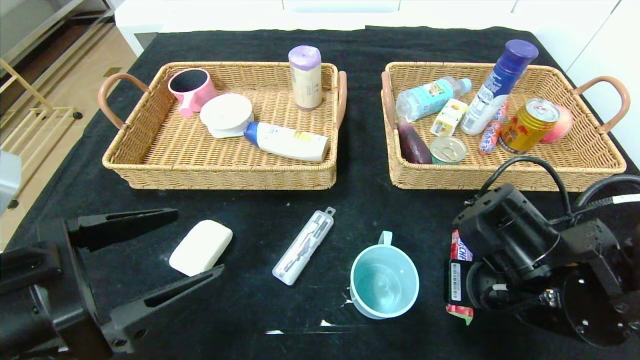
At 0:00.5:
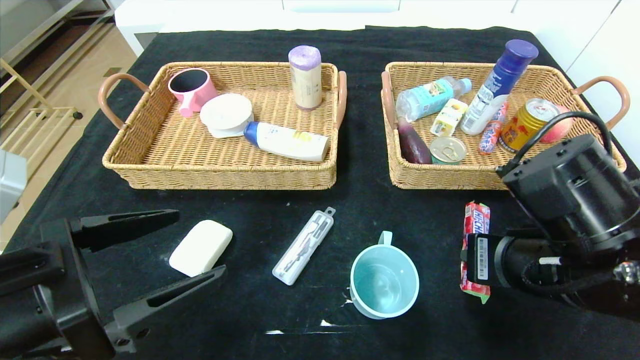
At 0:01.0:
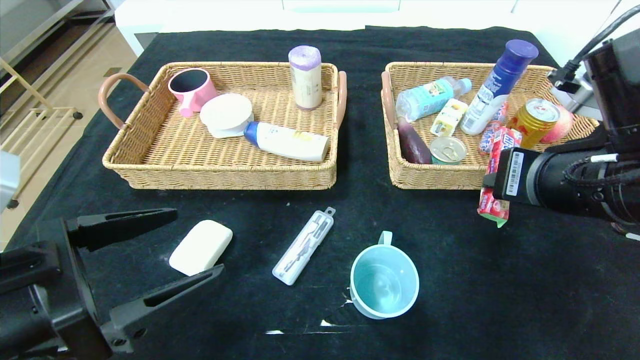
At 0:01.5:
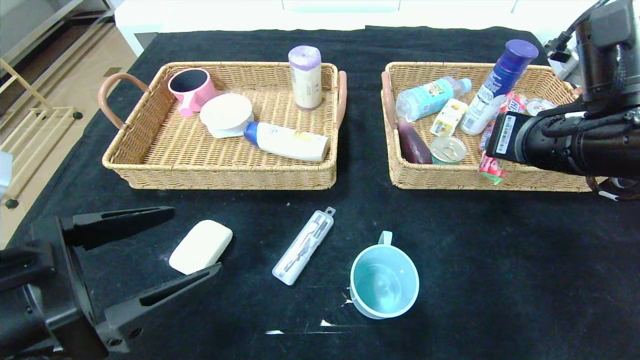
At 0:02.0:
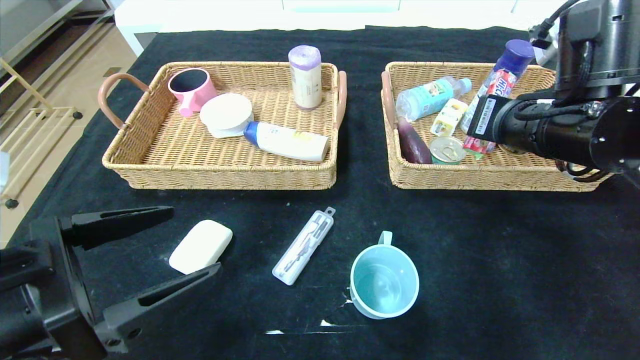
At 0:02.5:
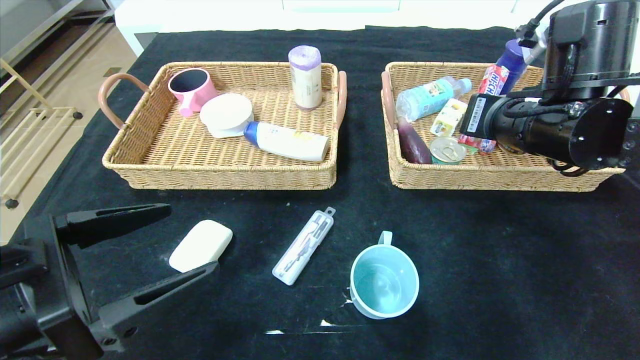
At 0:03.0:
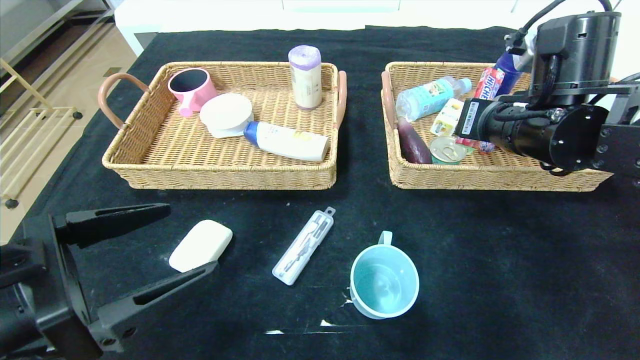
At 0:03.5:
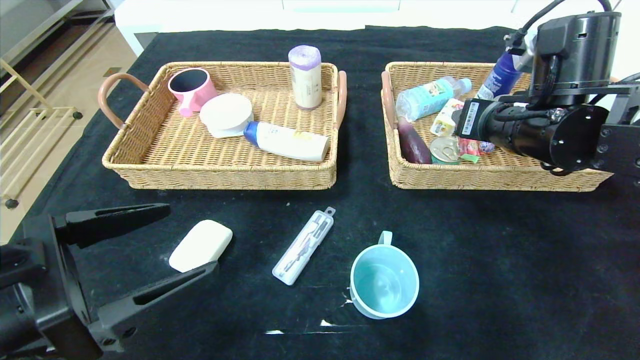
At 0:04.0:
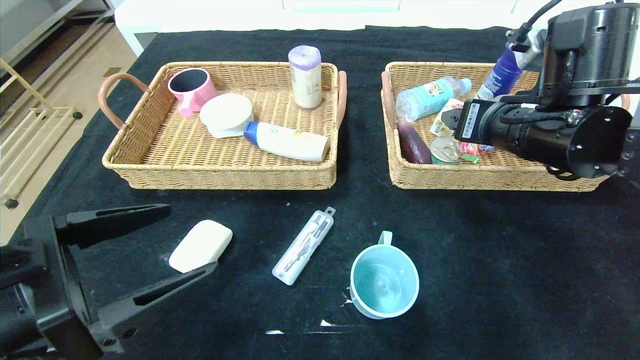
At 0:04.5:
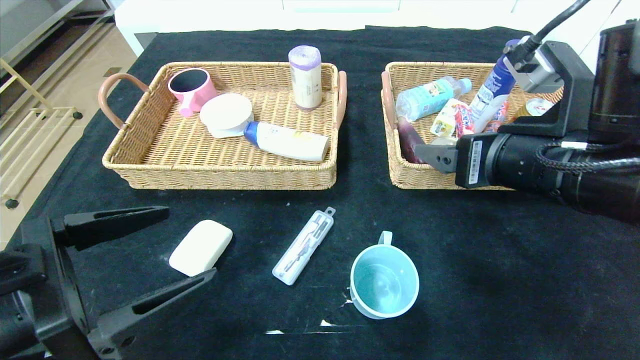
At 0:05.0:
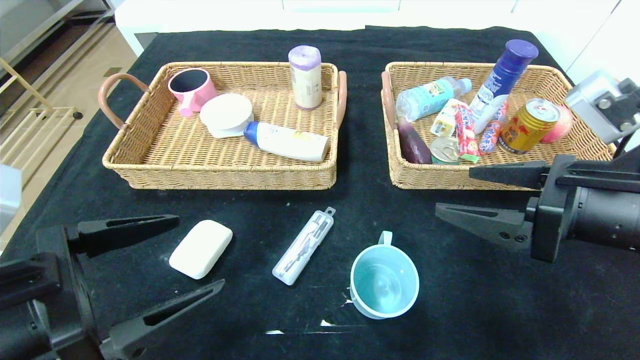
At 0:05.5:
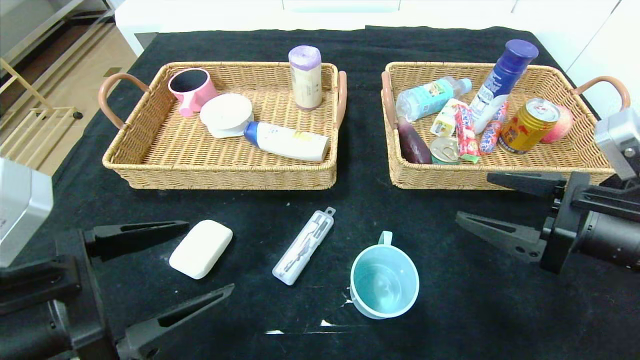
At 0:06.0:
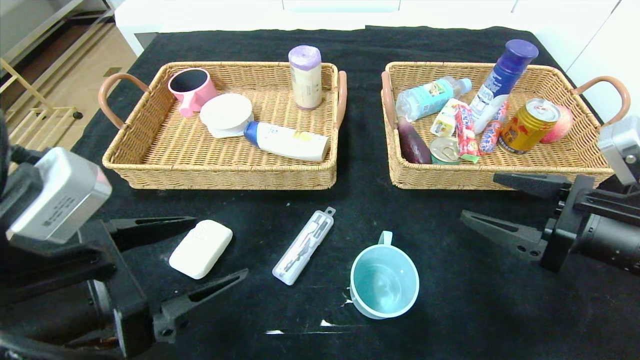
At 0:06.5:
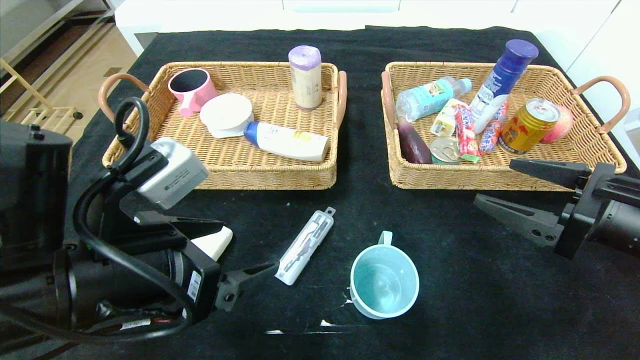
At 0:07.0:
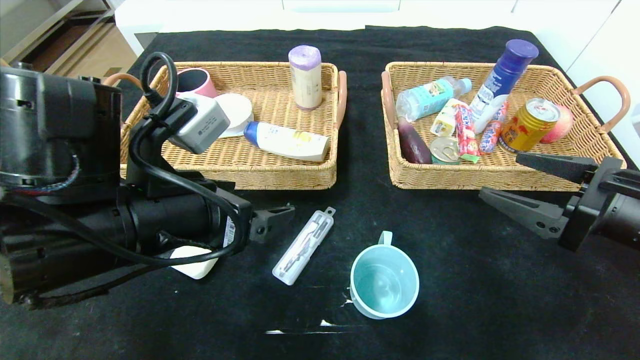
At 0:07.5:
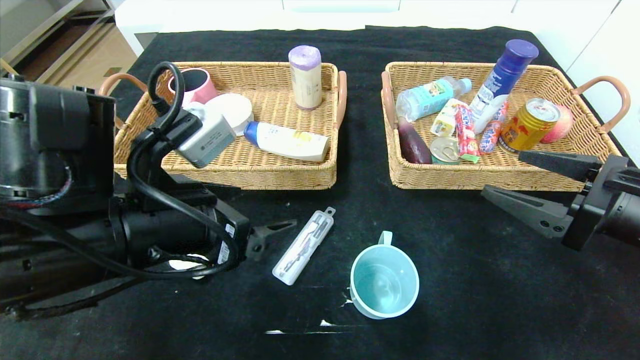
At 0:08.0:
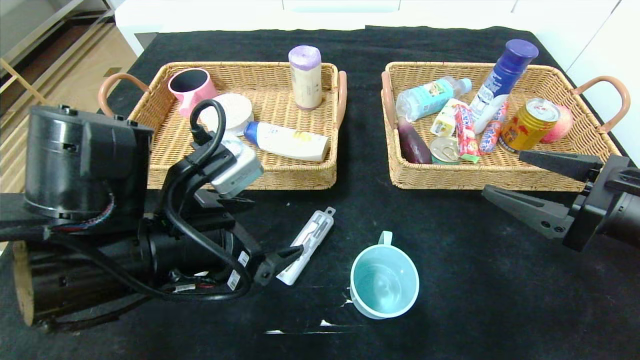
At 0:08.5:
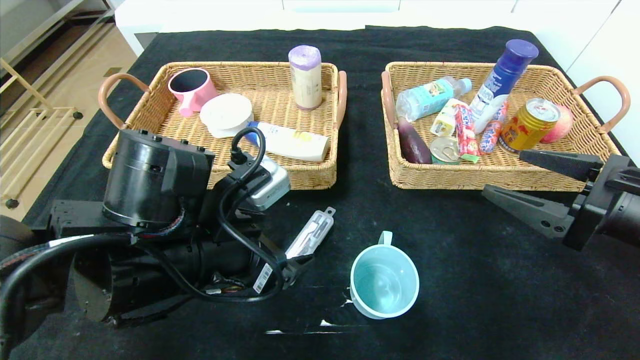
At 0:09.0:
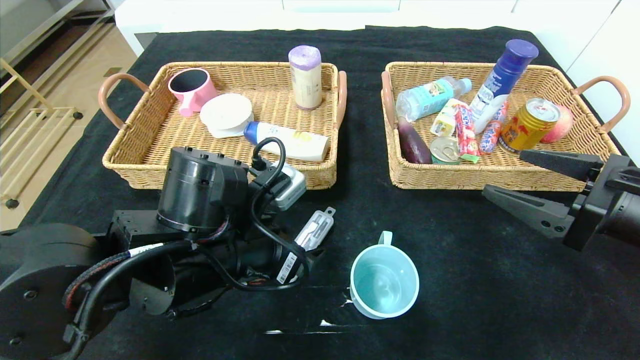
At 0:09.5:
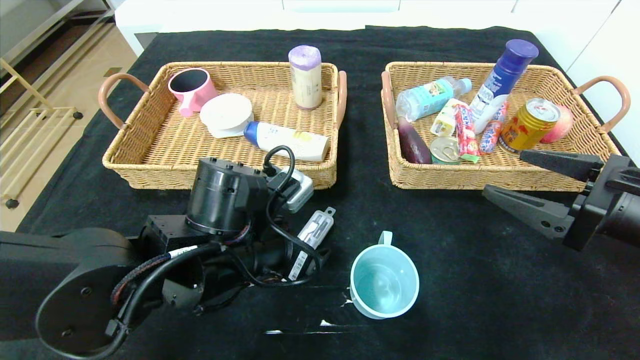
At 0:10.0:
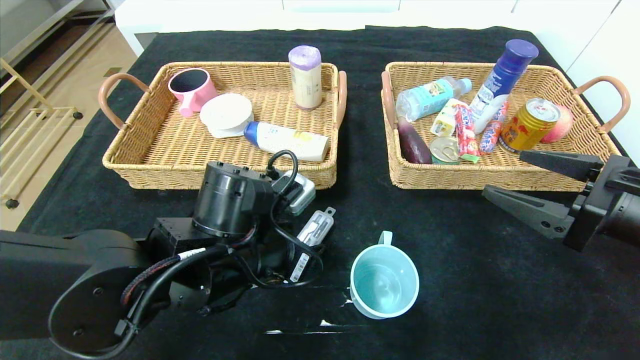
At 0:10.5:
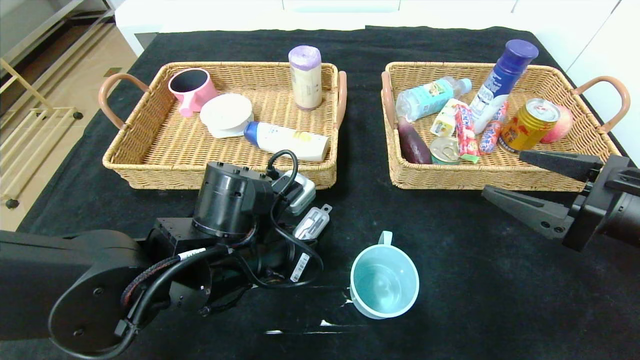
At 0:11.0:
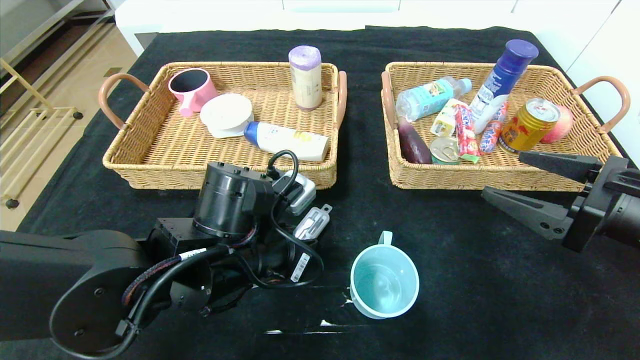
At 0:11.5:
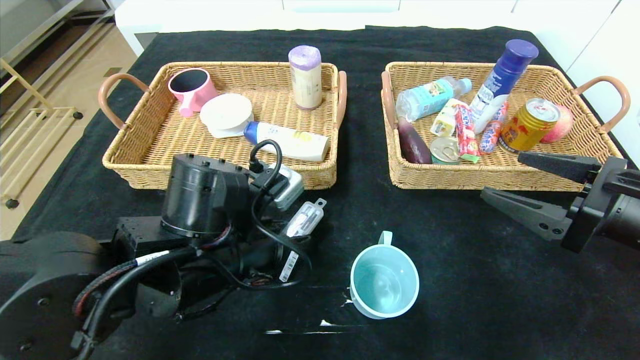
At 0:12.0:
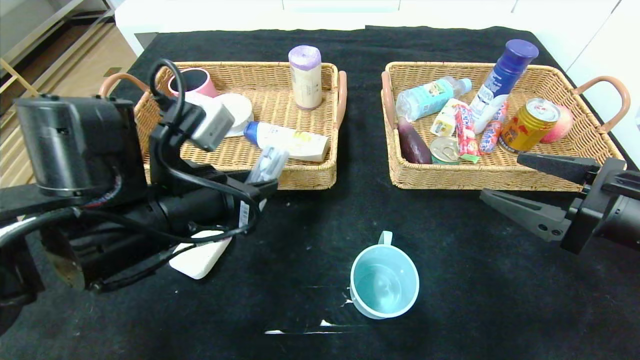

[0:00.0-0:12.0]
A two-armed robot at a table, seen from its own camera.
Step, 0:00.0 to 0:03.5: Grasp the fruit fudge and put it in the right basket.
0:00.0 to 0:02.0: The right gripper is displaced upward and forward by roughly 15 cm.
0:02.0 to 0:04.0: The right gripper opens up.
0:04.0 to 0:06.0: The right gripper travels backward, to the right and downward by some 15 cm.
0:06.0 to 0:08.0: The left gripper heads forward and to the right, covering approximately 10 cm.
0:08.0 to 0:10.0: The left gripper travels downward by roughly 5 cm, and closes.
0:10.0 to 0:12.0: The left gripper moves upward and to the left, some 10 cm.

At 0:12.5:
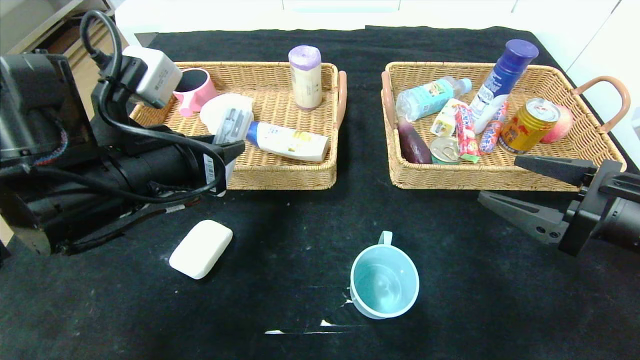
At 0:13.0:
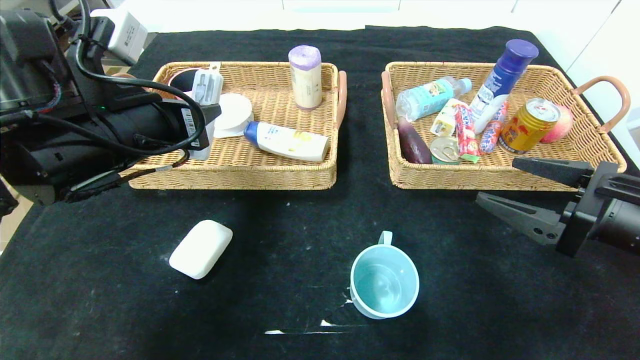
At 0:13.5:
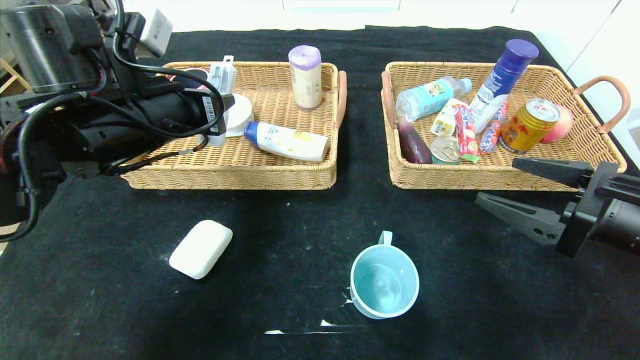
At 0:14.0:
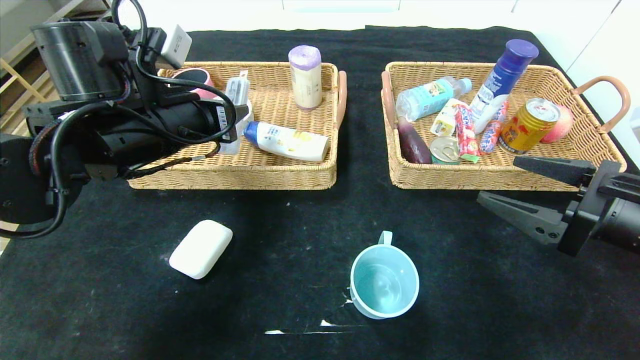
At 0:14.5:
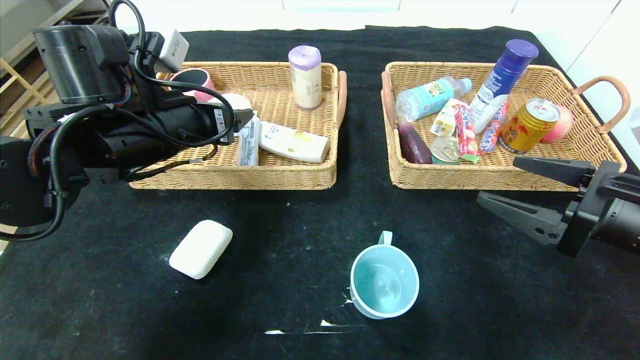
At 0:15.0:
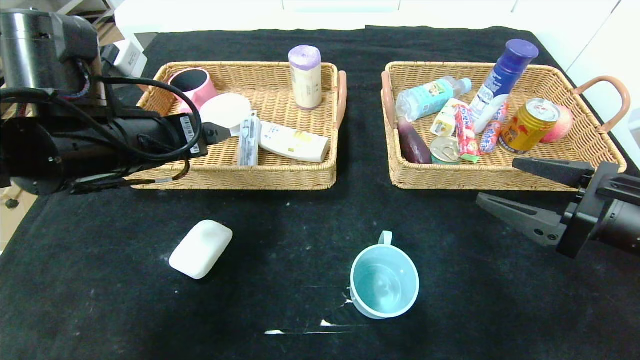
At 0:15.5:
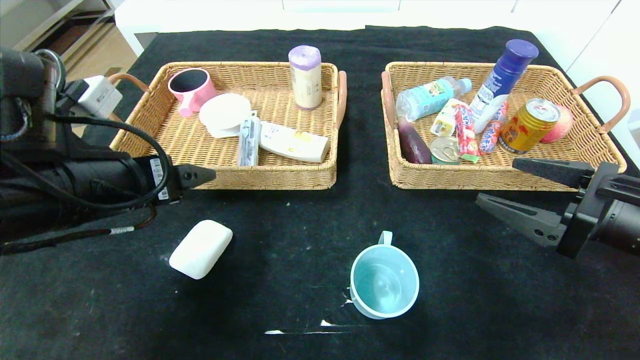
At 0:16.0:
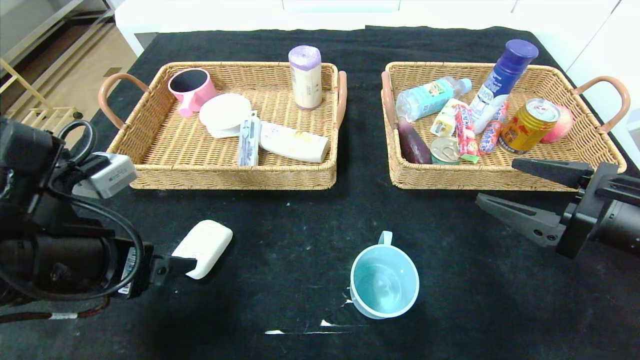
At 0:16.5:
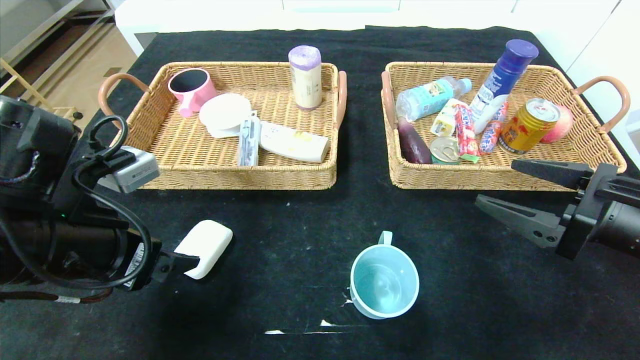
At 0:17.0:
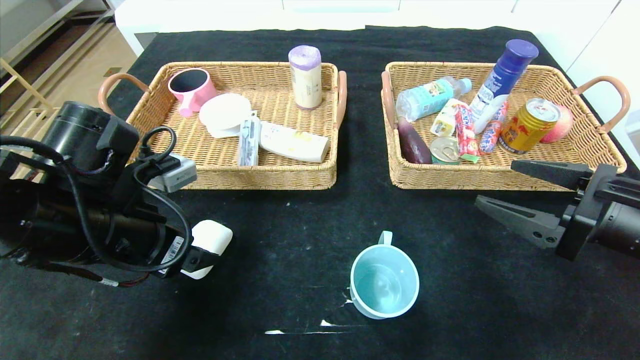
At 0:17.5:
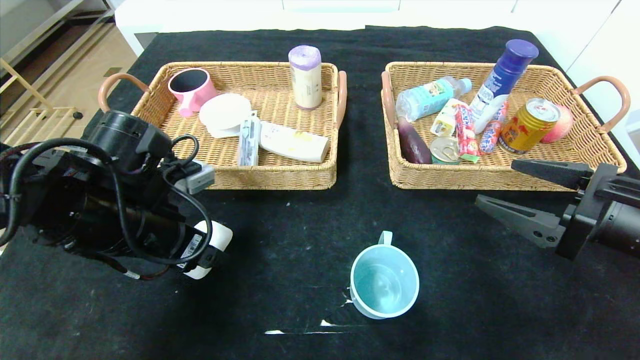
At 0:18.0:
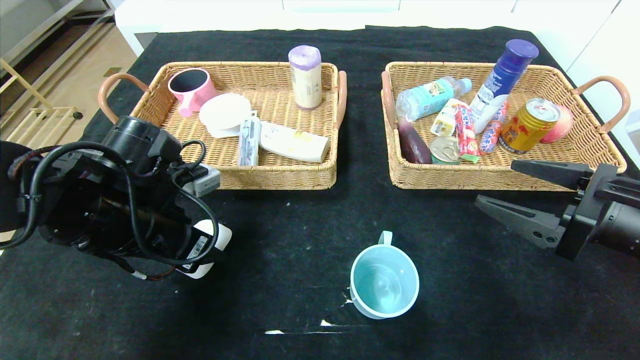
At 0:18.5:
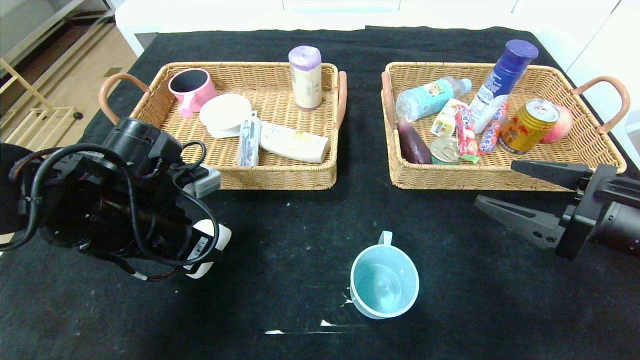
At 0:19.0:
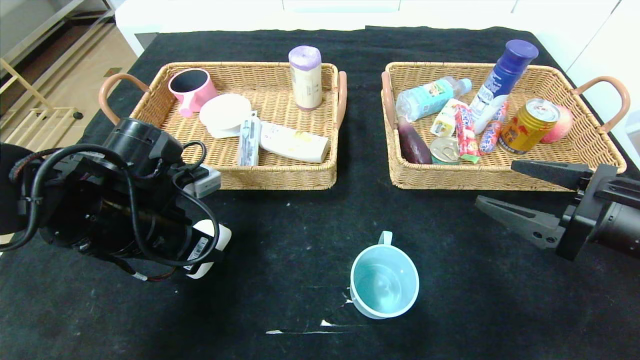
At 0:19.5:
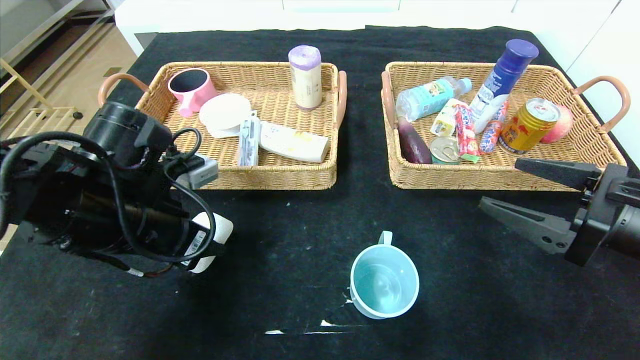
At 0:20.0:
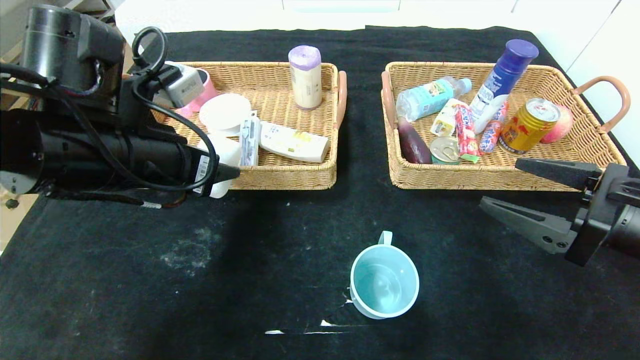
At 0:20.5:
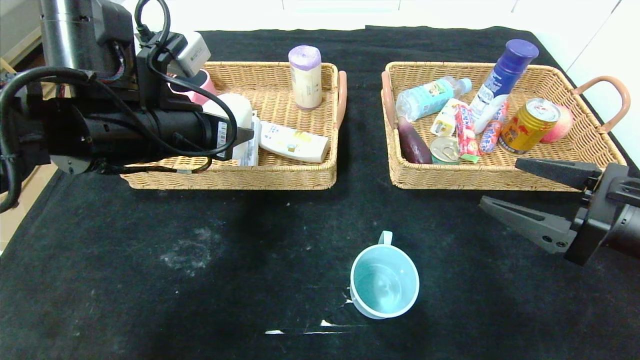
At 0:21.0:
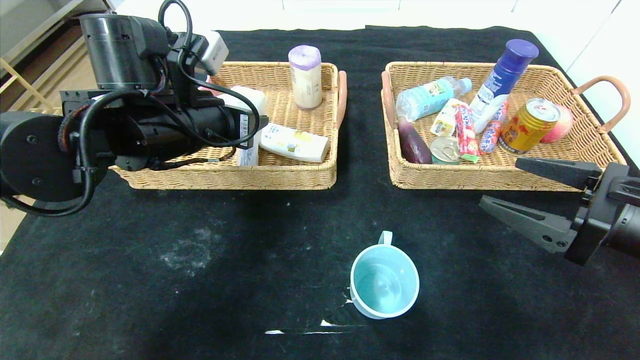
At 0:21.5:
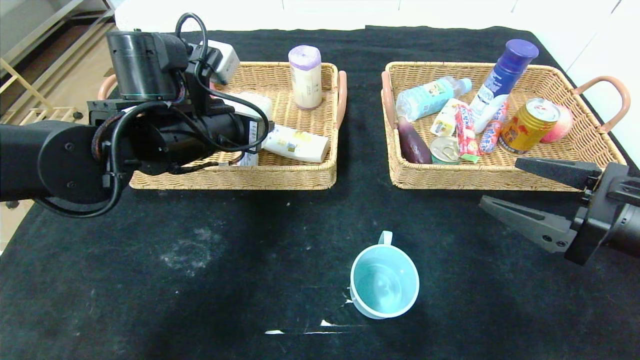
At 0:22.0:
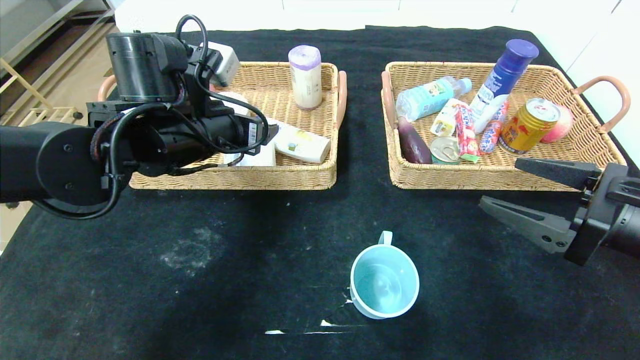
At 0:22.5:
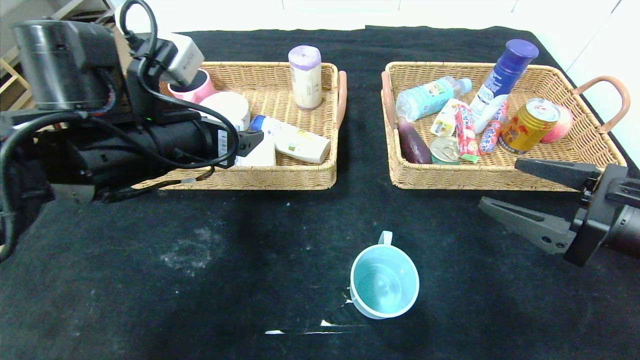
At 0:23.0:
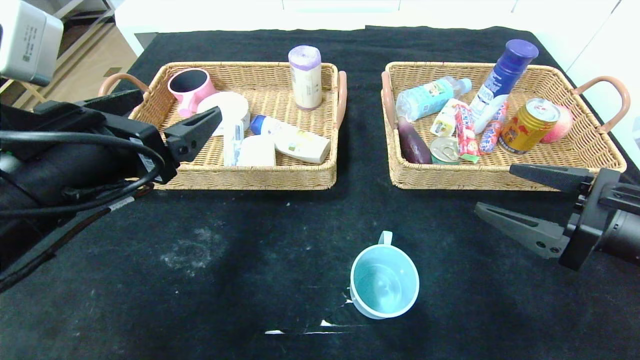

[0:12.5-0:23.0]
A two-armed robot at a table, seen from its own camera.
Step, 0:12.5 to 0:15.0: Grasp the compass and put it in the left basket.
Step, 0:15.5 to 0:22.0: Grasp the soap and put it in the left basket.
0:12.5 to 0:14.5: The left gripper travels forward by approximately 5 cm, and opens.
0:14.5 to 0:16.5: The left gripper travels backward by about 10 cm.
0:16.5 to 0:19.0: The left gripper travels forward by approximately 5 cm, and closes its fingers.
0:19.0 to 0:21.0: The left gripper moves upward and forward, roughly 10 cm.
0:21.0 to 0:23.0: The left gripper travels backward by approximately 15 cm, and opens.
